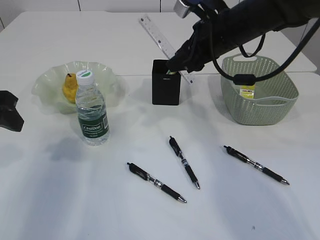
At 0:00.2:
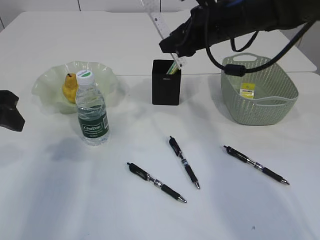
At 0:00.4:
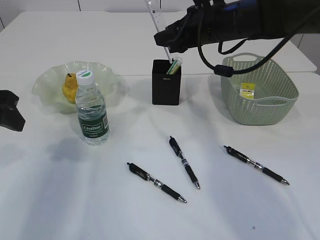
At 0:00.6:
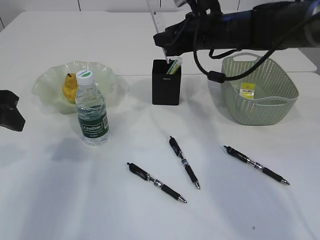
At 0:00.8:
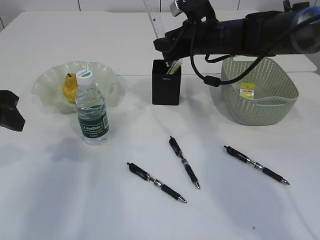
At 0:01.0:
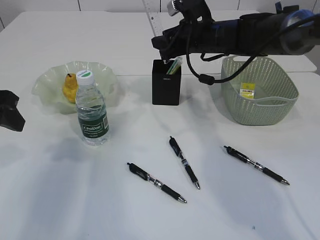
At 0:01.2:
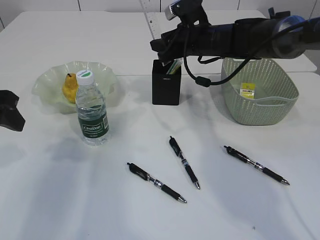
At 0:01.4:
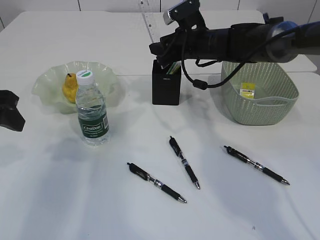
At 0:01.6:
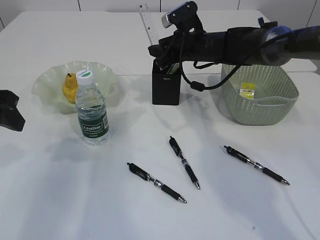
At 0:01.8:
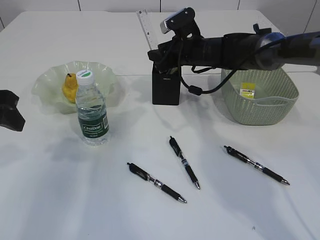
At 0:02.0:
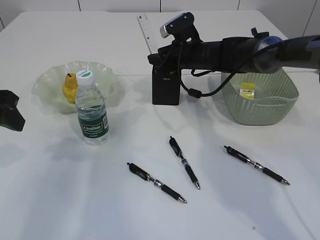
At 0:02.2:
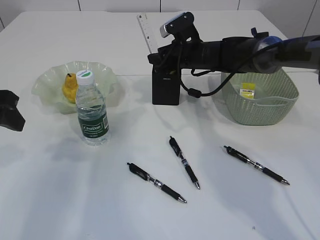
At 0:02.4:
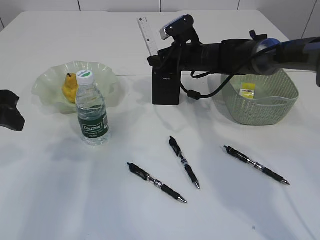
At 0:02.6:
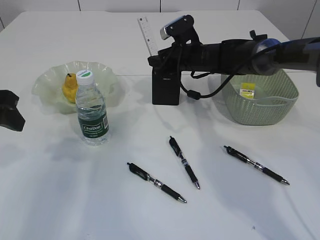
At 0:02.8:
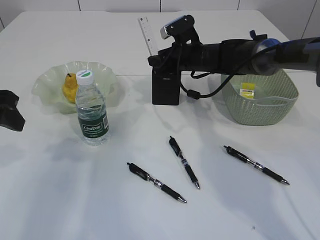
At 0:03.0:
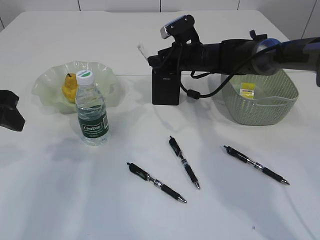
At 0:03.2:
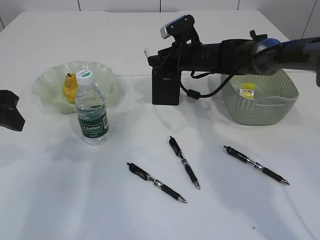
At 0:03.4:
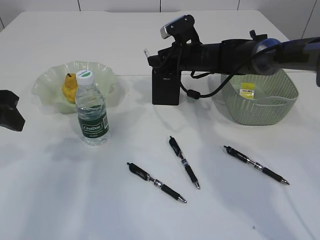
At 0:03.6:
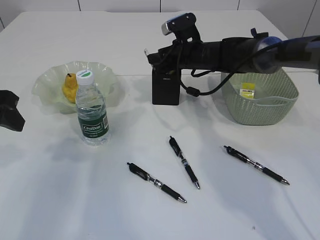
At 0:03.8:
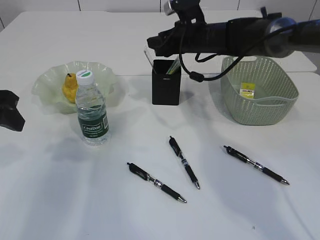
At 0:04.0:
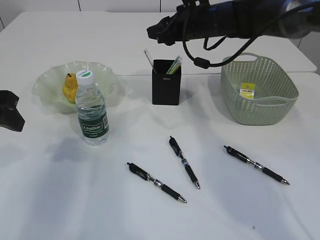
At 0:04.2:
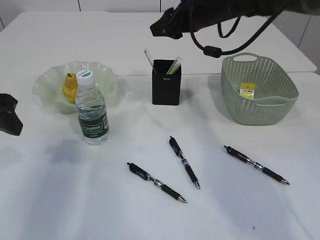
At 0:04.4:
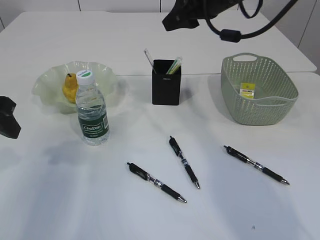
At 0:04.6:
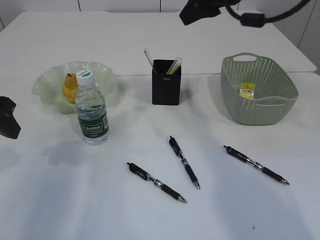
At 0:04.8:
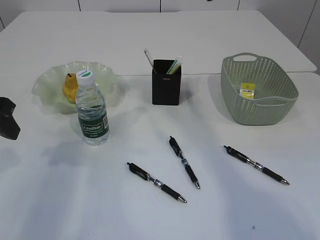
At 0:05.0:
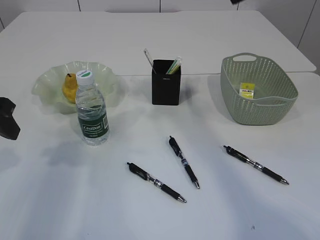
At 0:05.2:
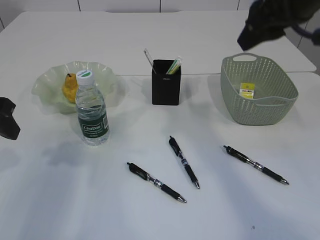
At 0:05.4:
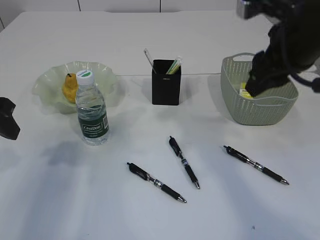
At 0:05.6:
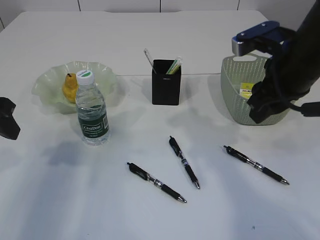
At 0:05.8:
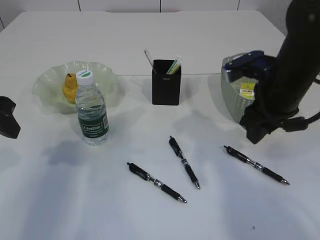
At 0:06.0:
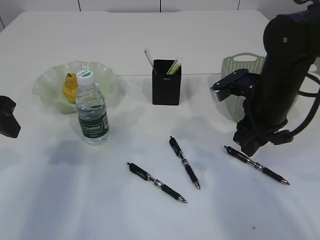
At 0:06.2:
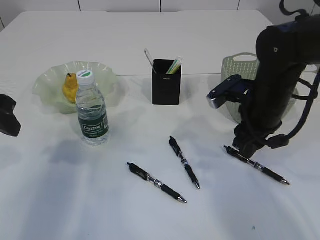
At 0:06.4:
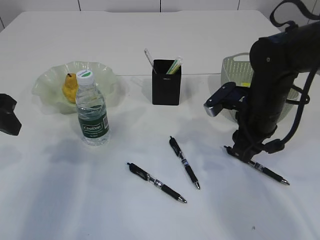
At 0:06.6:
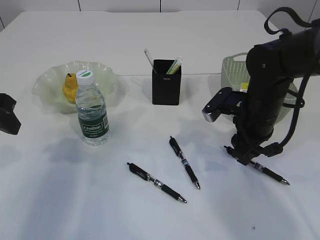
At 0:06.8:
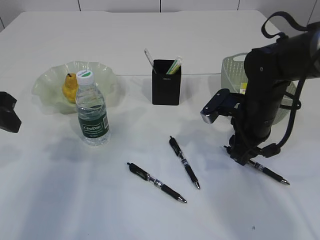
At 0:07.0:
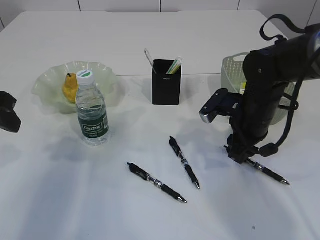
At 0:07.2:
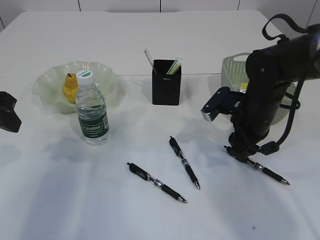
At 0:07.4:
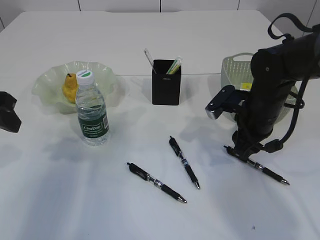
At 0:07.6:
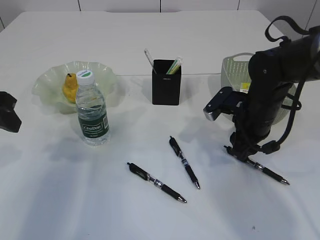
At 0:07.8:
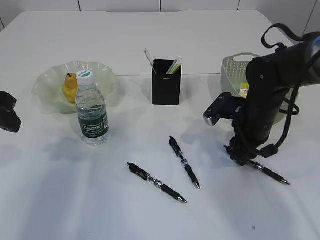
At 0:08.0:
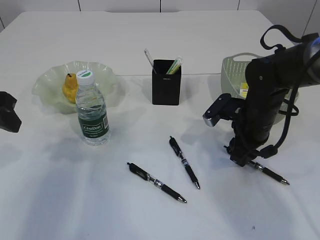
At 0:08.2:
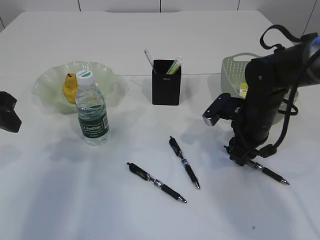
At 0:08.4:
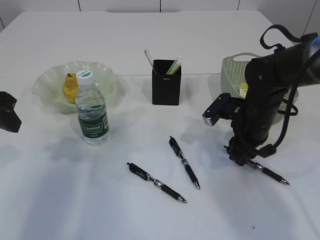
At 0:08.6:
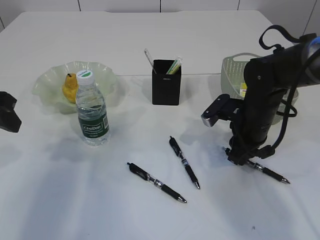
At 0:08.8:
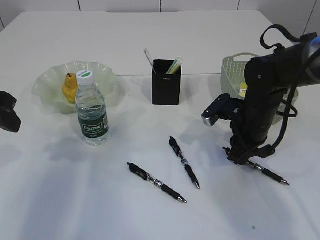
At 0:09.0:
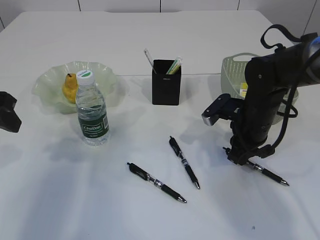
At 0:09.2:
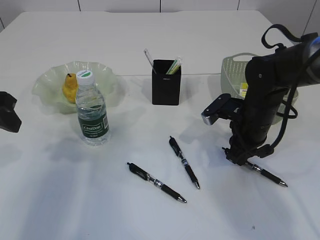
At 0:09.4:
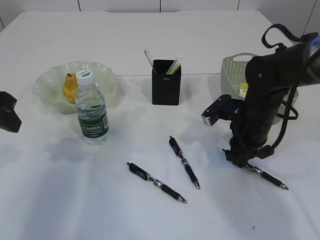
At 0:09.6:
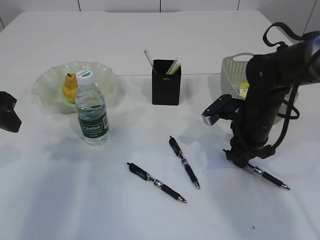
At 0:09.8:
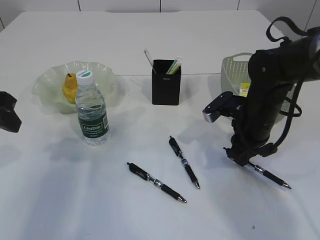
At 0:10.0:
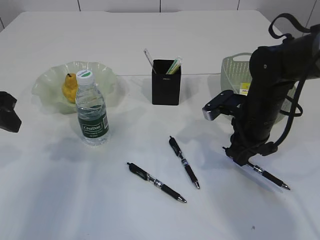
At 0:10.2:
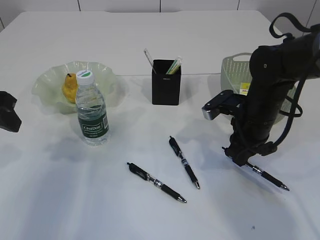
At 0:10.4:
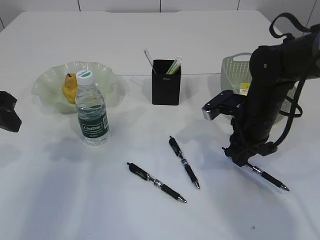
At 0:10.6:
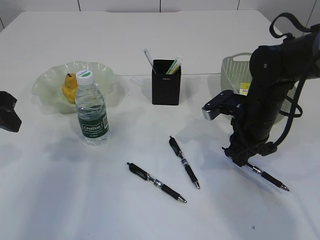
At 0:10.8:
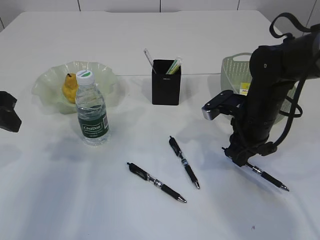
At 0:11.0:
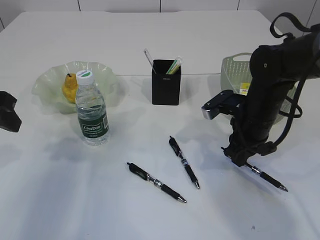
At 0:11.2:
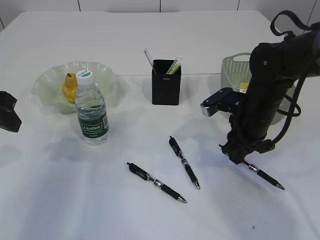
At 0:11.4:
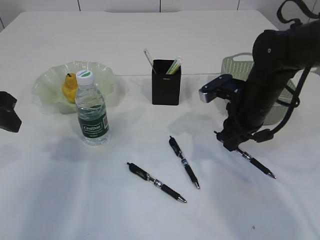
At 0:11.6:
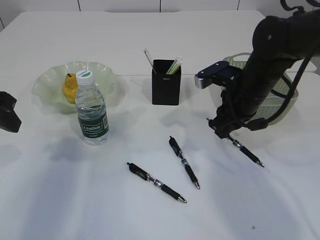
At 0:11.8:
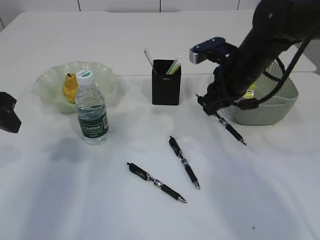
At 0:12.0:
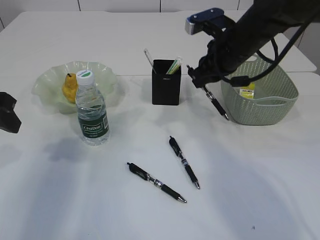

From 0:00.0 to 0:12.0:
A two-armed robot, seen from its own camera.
Step, from 0:00.0 to 0:05.2: Place the ruler into the pen holder.
Step, from 0:05.4 to 0:11.2: Pick up the pen with right arm.
From 0:00.0 to 0:01.6: The right gripper goes approximately 15 cm forward and downward.
From 0:01.6 to 0:03.0: The grippers move only a little.
From 0:03.0 to 0:04.4: The right gripper shifts about 15 cm upward and backward.
From 0:04.4 to 0:06.0: The right gripper goes approximately 15 cm downward, backward and to the right.
From 0:06.0 to 0:07.6: The right gripper goes some 5 cm downward.
From 0:07.6 to 0:09.0: The right gripper closes.
From 0:09.0 to 0:10.4: The grippers make only small movements.
From 0:10.4 to 0:12.0: The right gripper moves upward and forward, about 10 cm.

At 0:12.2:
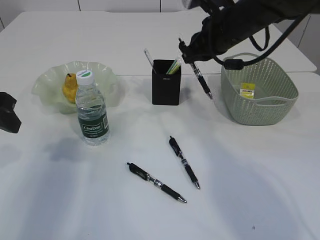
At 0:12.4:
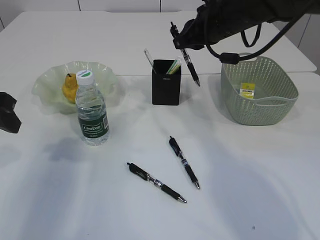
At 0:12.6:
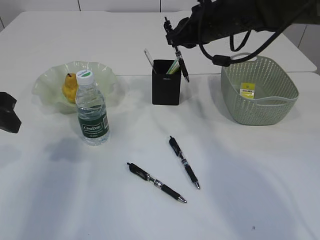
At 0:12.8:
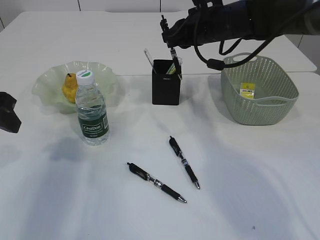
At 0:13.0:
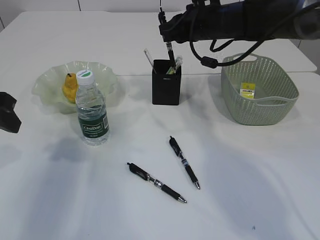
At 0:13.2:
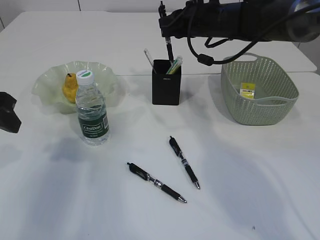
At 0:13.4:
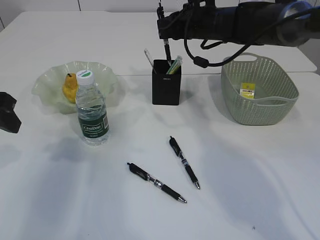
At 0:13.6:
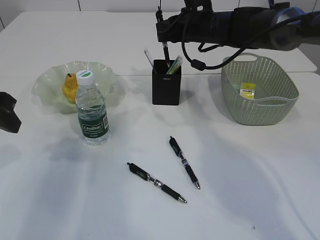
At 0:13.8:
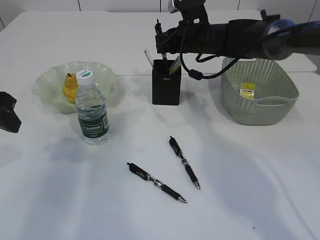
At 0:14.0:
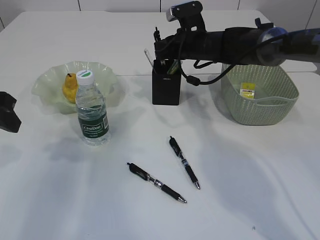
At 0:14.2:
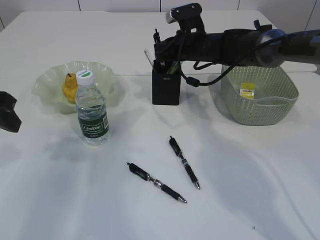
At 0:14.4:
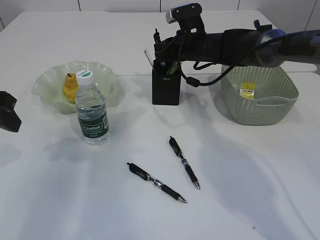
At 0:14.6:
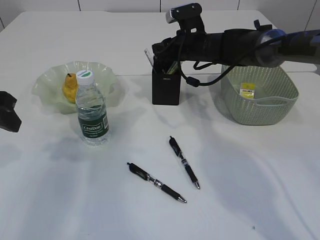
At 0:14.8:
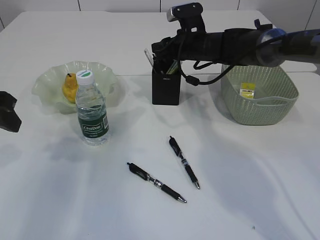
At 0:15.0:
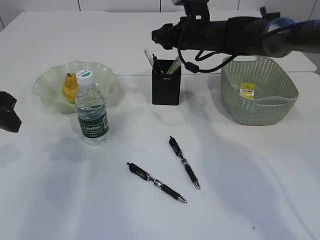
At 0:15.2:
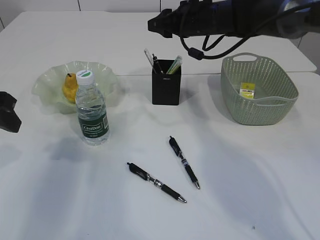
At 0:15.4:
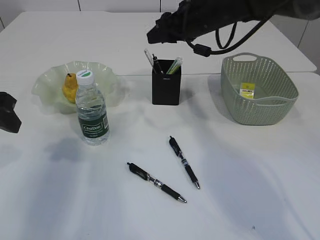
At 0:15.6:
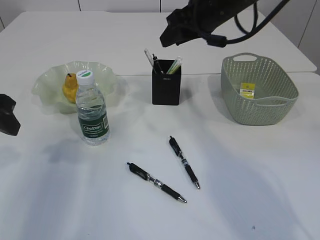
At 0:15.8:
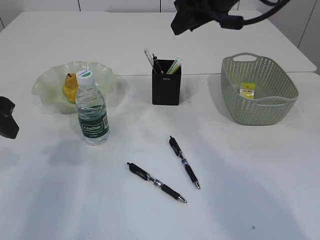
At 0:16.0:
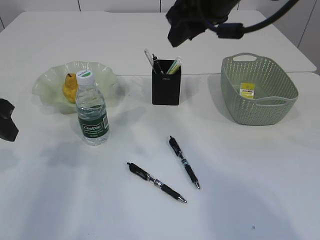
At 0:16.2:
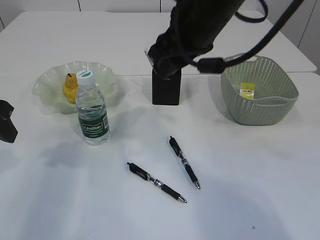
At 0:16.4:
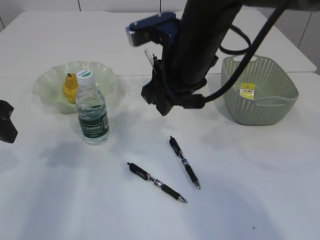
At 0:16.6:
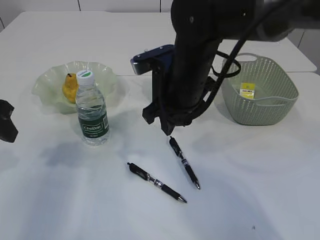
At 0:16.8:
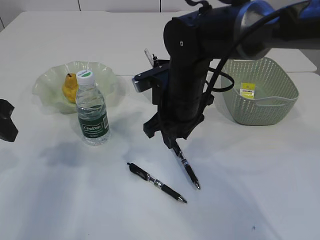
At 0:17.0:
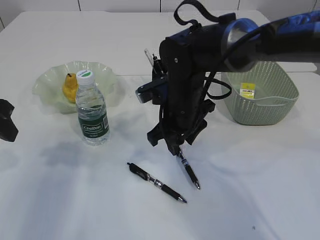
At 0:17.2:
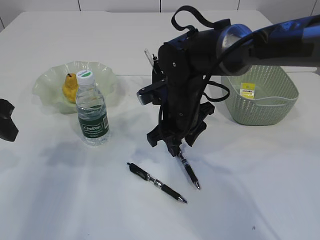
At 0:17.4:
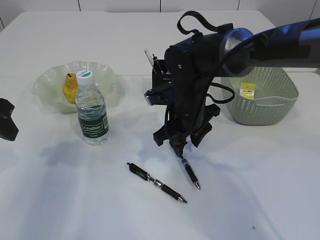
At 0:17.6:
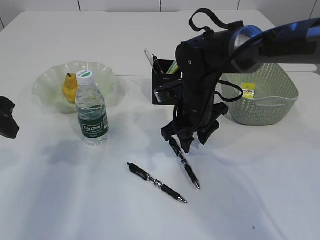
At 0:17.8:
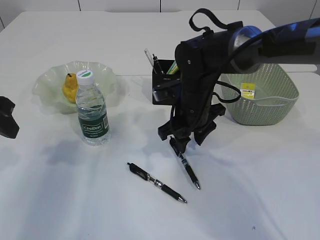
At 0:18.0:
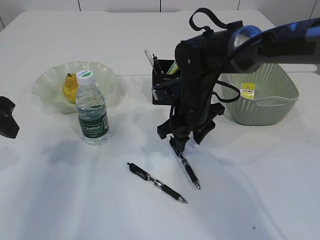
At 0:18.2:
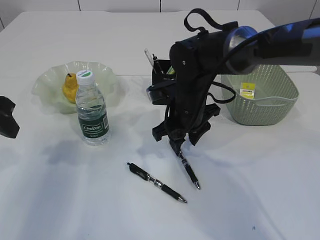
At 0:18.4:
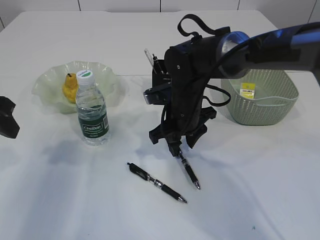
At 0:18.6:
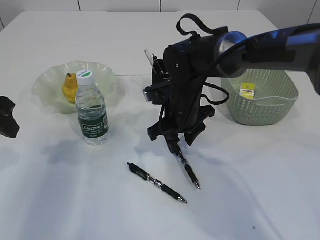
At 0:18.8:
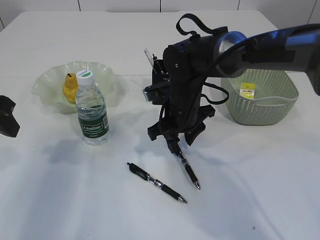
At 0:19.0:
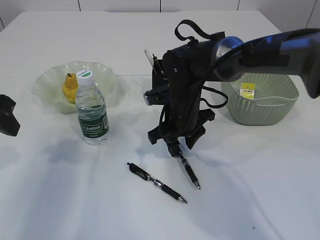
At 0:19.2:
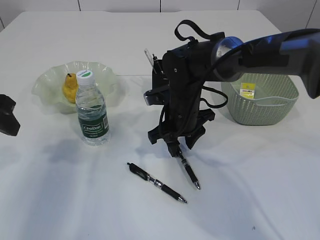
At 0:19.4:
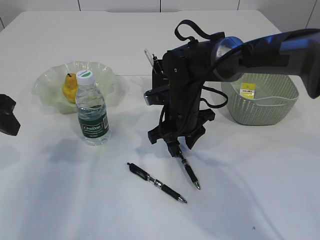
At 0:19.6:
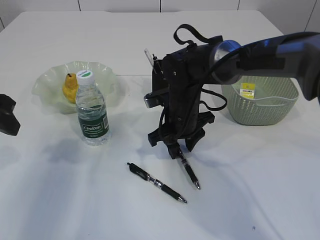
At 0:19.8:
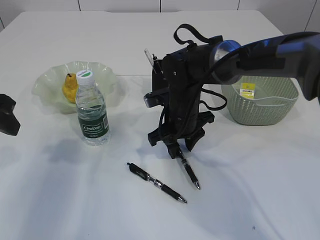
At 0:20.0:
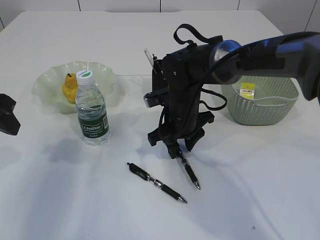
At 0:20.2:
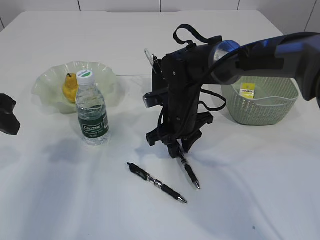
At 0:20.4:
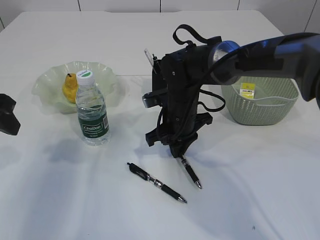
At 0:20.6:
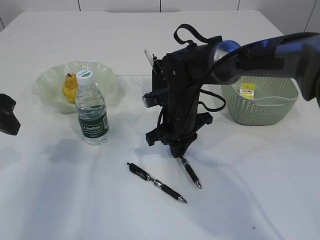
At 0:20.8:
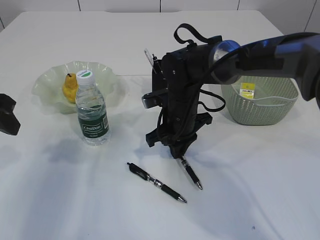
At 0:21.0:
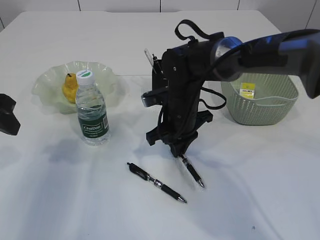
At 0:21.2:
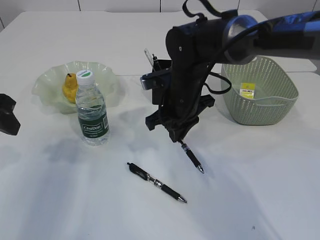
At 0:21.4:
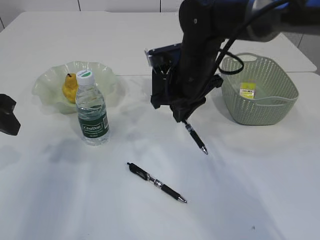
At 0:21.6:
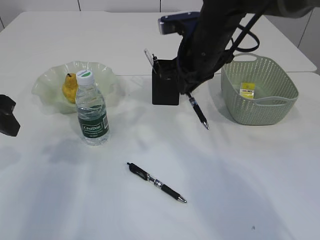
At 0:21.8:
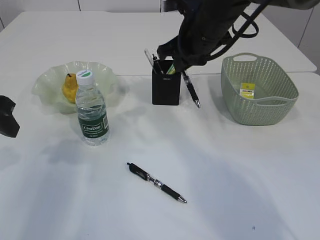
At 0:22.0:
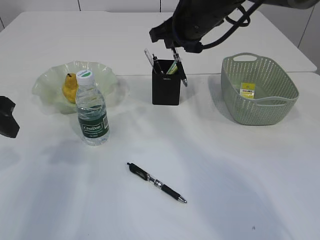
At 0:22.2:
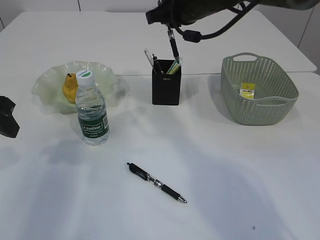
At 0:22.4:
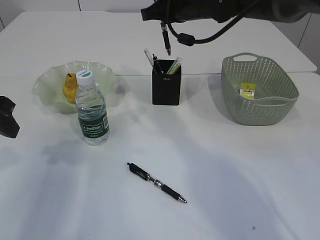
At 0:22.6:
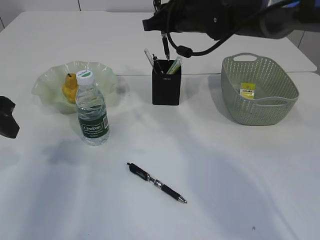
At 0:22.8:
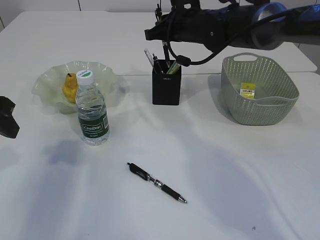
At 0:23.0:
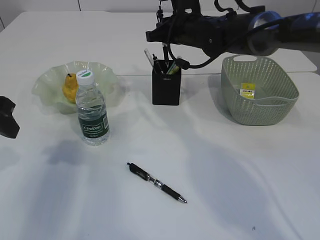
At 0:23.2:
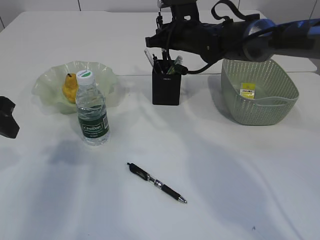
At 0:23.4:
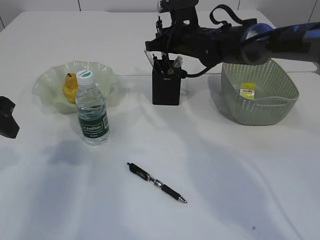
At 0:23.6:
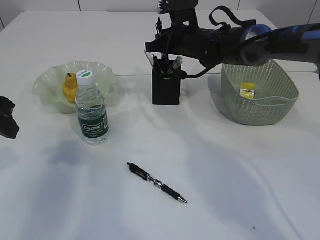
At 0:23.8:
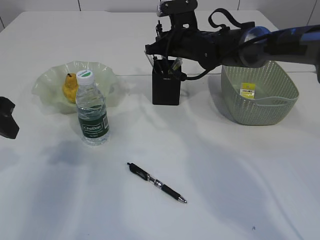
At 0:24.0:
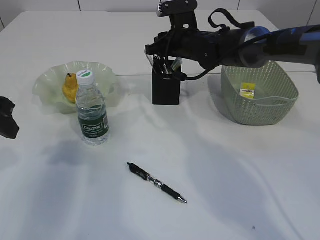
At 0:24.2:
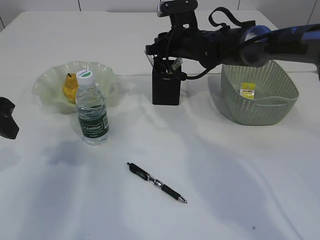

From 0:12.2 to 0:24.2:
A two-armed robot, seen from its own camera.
Step, from 0:12.2 to 0:15.6: Place the pen into the pen holder.
Step, from 0:15.8 to 0:21.8: Pick up the pen with right arm.
From 0:12.2 to 0:13.8: The right gripper travels forward and downward by about 10 cm.
From 0:13.8 to 0:15.2: The right gripper opens.
From 0:15.2 to 0:16.6: The right gripper travels backward by roughly 15 cm.
From 0:16.6 to 0:18.2: The right gripper goes about 10 cm downward.
From 0:18.2 to 0:19.8: The grippers make only small movements.
From 0:19.8 to 0:21.2: The right gripper closes.
From 0:21.2 to 0:22.6: The right gripper moves upward and forward, about 15 cm.
From 0:22.6 to 0:24.2: The right gripper is displaced downward by some 5 cm.
